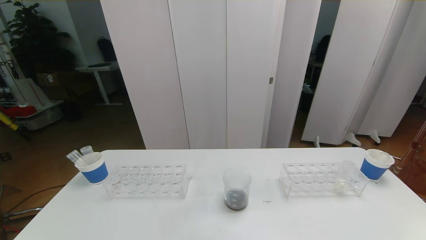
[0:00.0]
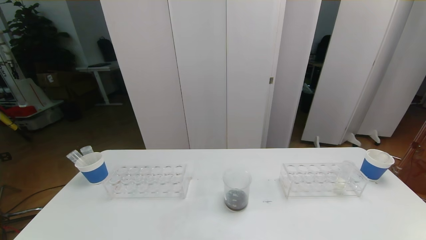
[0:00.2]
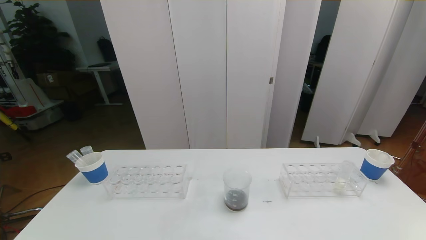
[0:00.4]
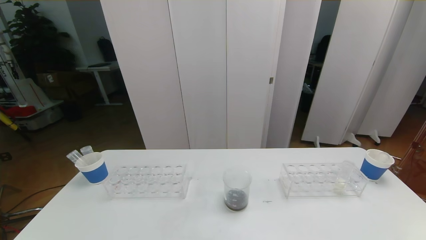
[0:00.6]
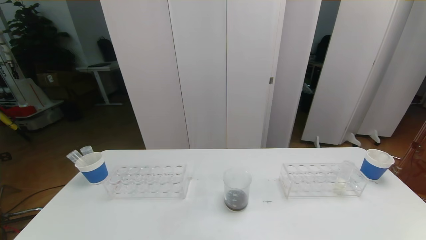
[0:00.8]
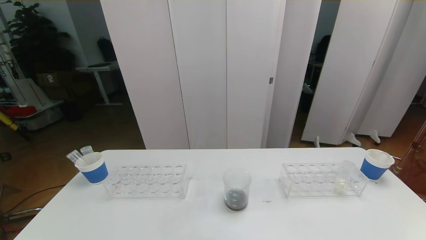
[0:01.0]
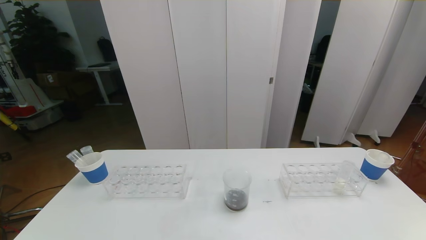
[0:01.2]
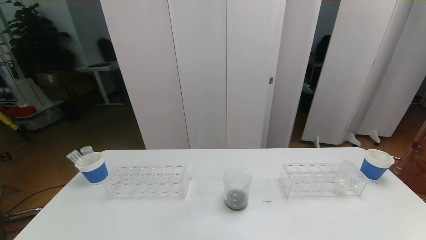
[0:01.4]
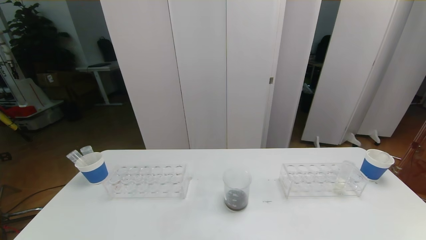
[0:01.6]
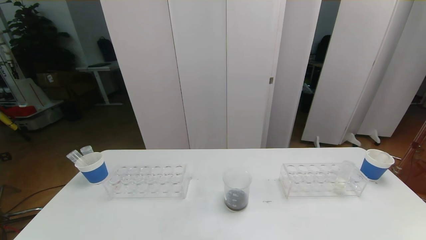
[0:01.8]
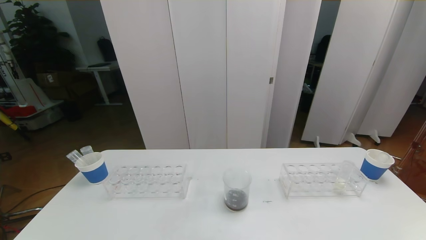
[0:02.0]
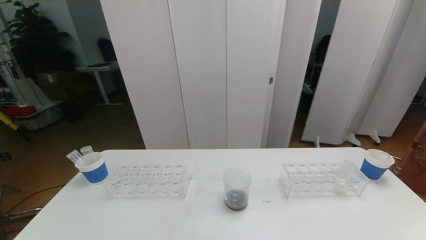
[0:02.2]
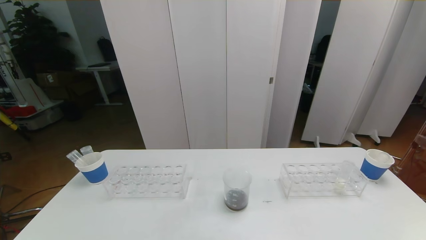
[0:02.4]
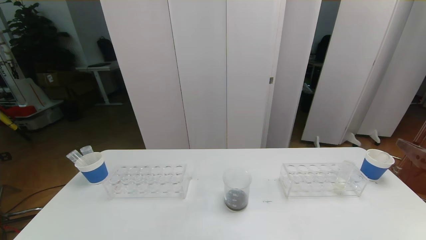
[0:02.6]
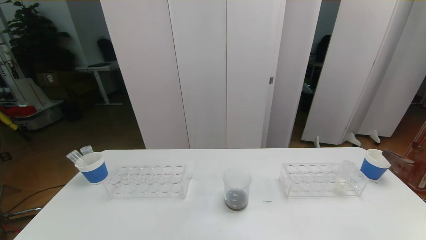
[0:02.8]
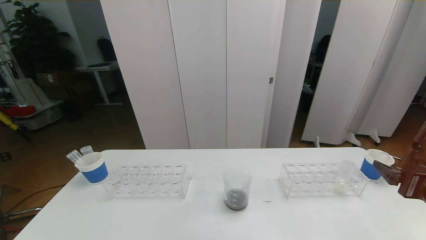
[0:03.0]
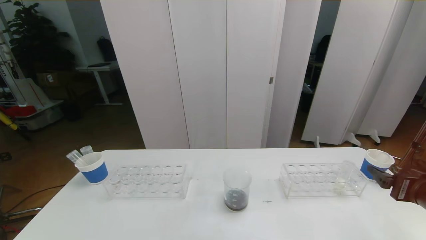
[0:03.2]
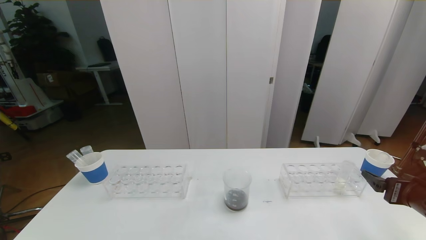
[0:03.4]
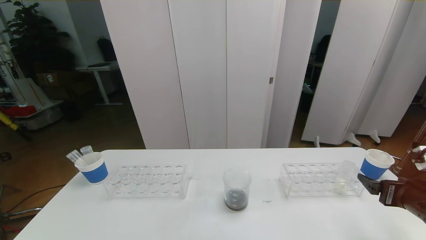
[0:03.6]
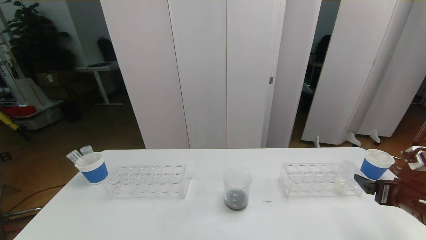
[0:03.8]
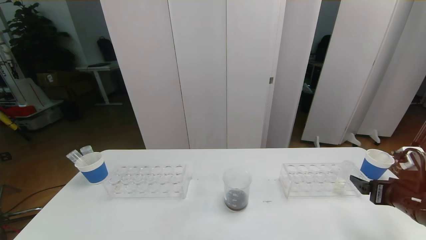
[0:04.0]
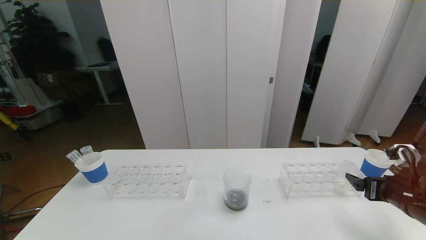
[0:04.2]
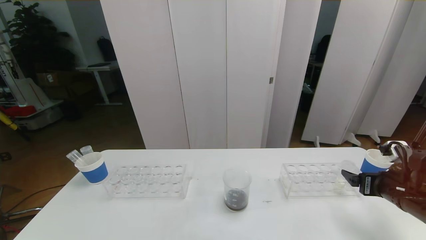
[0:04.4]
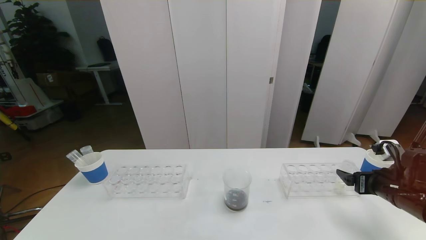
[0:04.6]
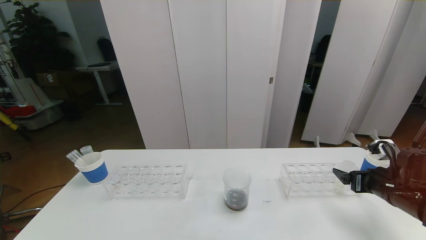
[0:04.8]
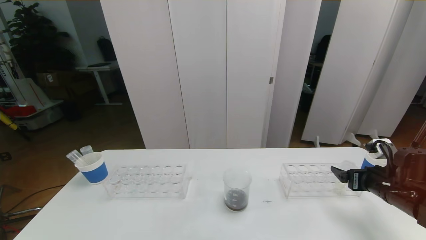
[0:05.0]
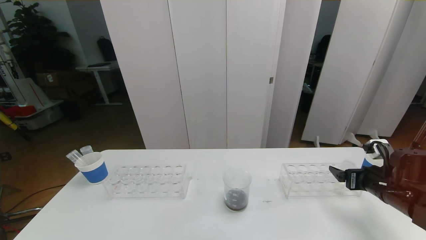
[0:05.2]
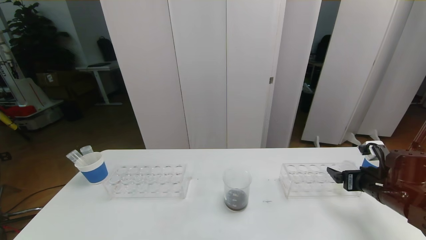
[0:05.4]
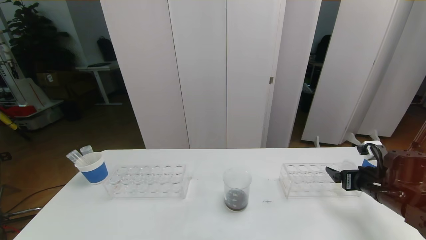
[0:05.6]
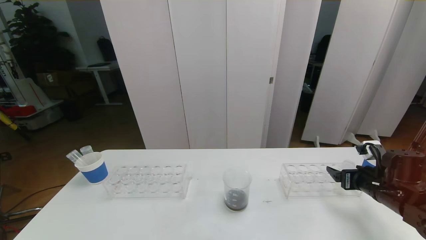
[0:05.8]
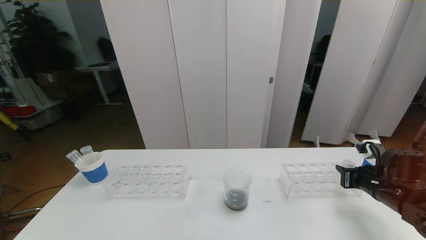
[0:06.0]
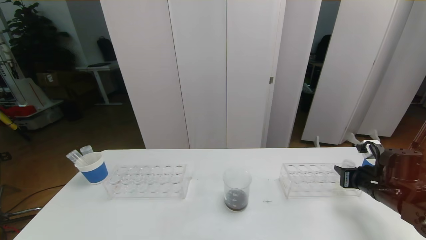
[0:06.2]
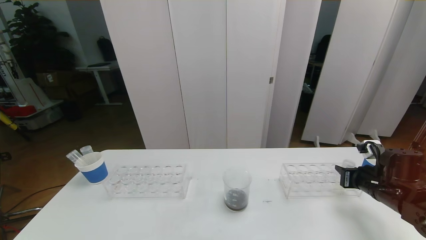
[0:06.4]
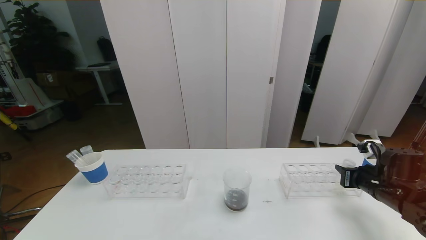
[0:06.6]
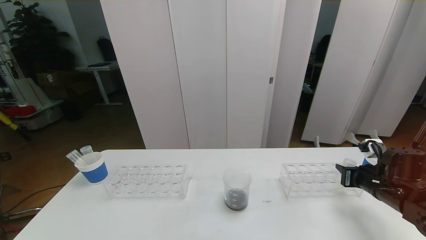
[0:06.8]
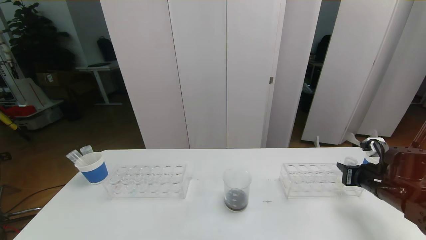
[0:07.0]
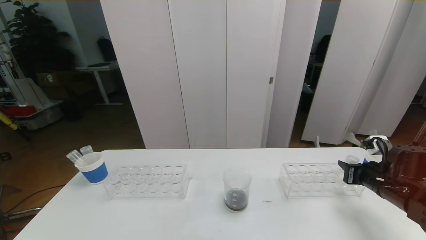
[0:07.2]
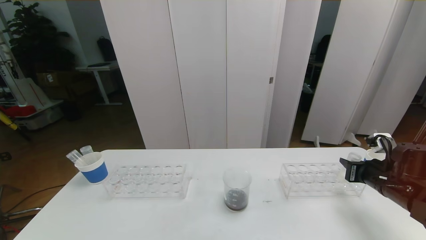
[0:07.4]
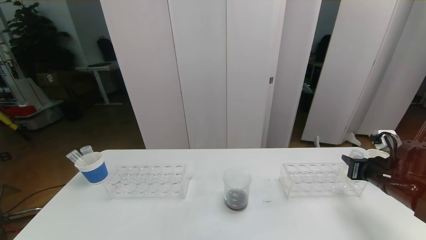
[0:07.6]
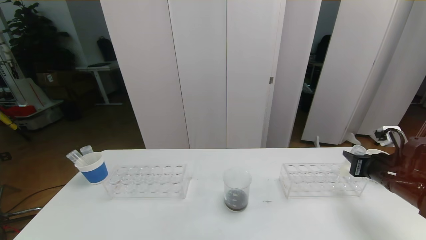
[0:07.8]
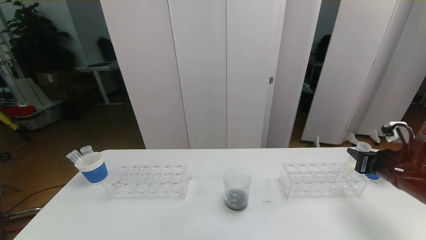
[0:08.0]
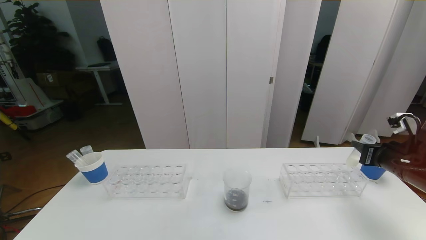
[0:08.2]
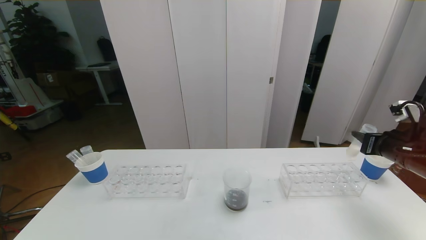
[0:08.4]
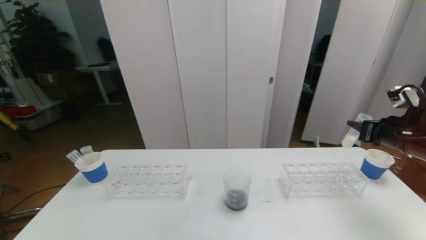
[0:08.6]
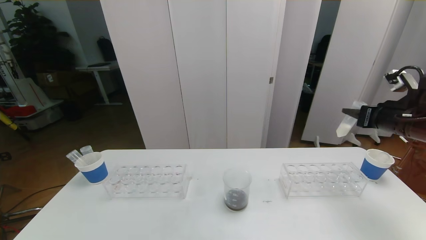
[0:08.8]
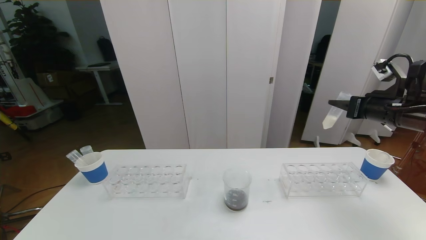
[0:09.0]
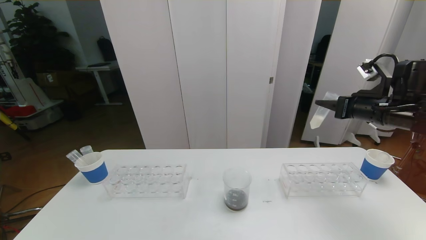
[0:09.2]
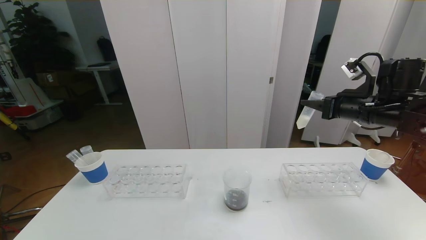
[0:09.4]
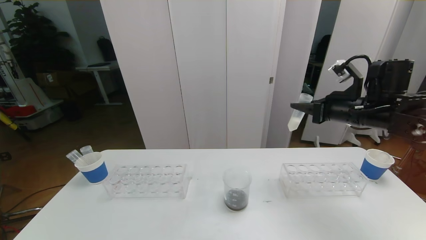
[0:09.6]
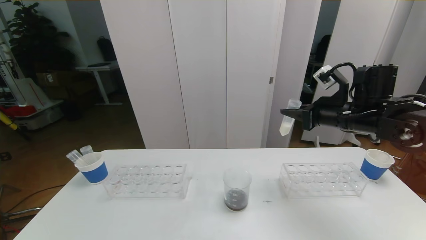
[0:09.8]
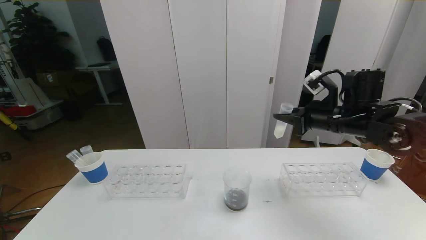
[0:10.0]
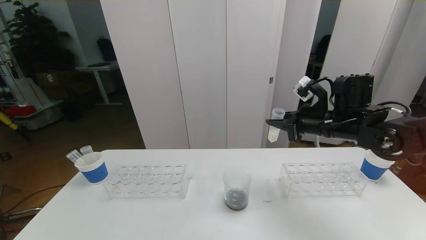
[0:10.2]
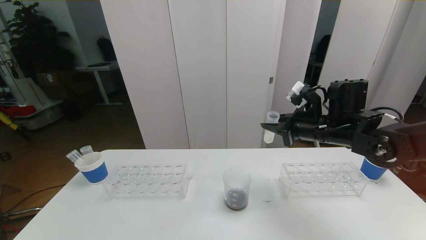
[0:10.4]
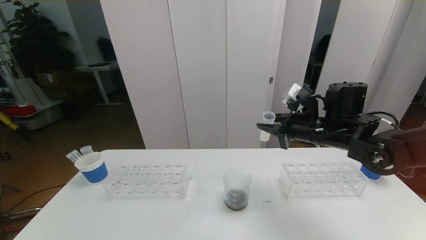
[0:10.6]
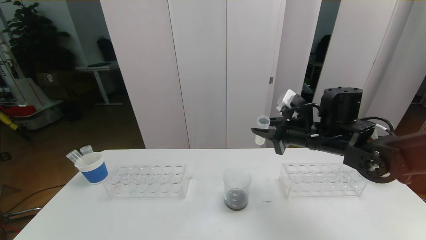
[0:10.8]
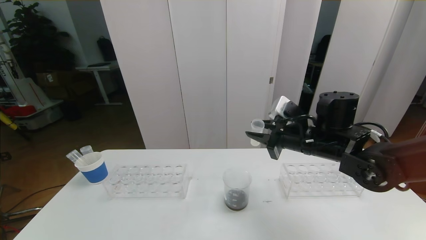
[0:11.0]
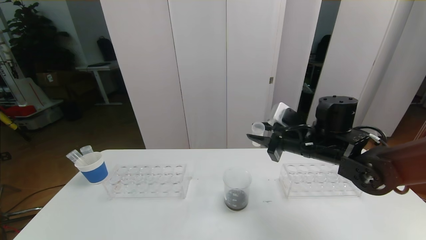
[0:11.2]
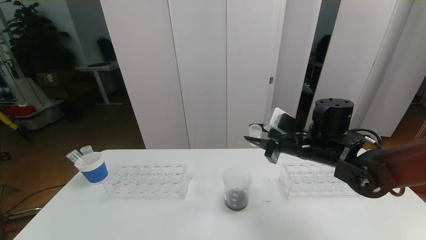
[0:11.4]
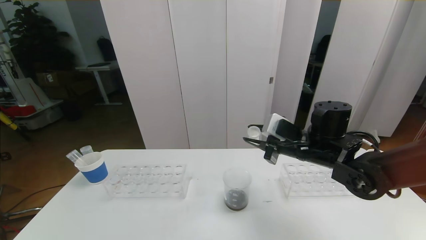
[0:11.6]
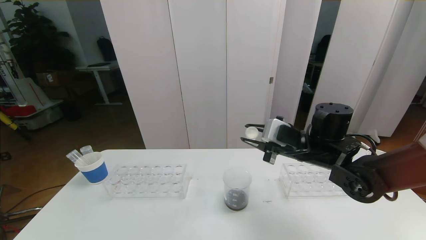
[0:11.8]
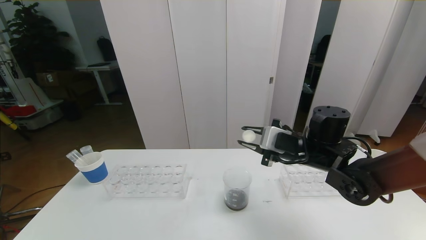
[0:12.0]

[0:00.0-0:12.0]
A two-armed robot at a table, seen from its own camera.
Task of the whole recording: pick up the test tube with red pigment the test tube with blue pigment and the test tube with white pigment by grippers and pour them into the beaker.
0:01.6 to 0:03.0: The right gripper goes approximately 20 cm forward and downward.
0:03.0 to 0:04.4: The right gripper is displaced forward and downward by about 10 cm.
0:04.4 to 0:06.0: The right gripper shifts by approximately 5 cm, and closes its fingers.
0:06.0 to 0:07.6: The grippers stay close to where they were, moving slightly.
0:07.6 to 0:09.0: The right gripper shifts approximately 15 cm upward and forward.
0:09.0 to 0:10.4: The right gripper heads to the left, covering approximately 15 cm.
0:10.4 to 0:12.0: The right gripper moves about 5 cm.

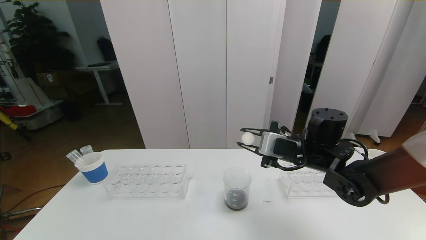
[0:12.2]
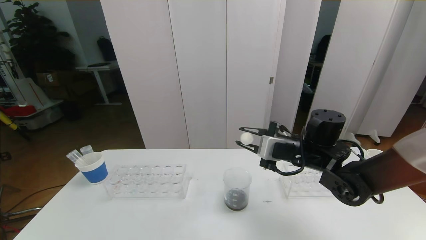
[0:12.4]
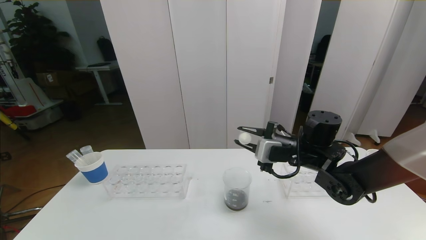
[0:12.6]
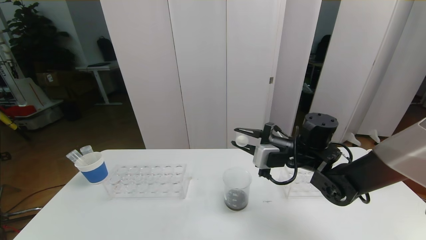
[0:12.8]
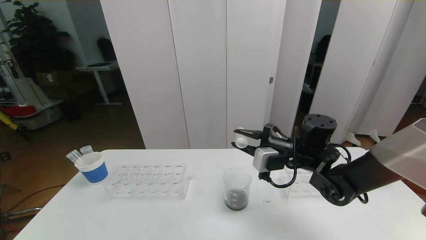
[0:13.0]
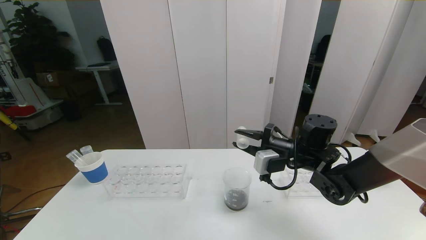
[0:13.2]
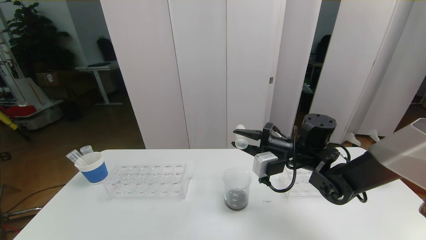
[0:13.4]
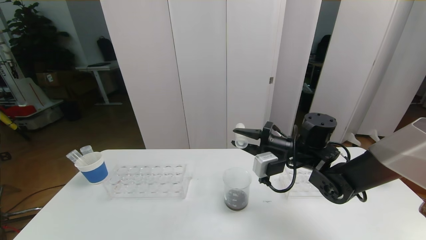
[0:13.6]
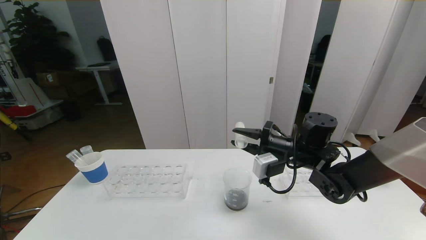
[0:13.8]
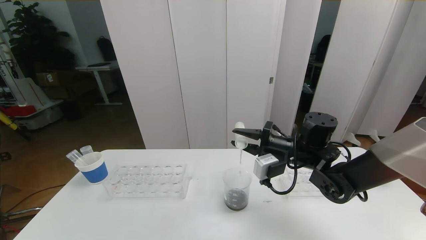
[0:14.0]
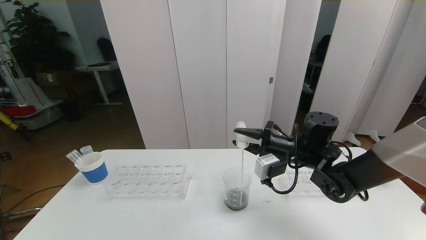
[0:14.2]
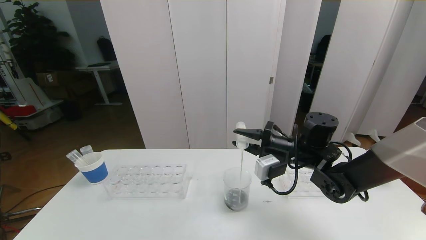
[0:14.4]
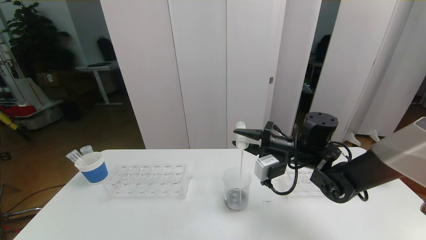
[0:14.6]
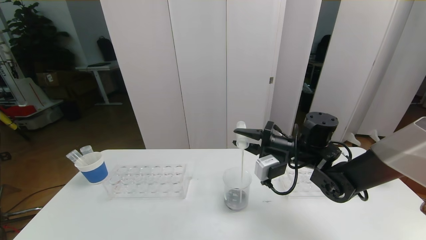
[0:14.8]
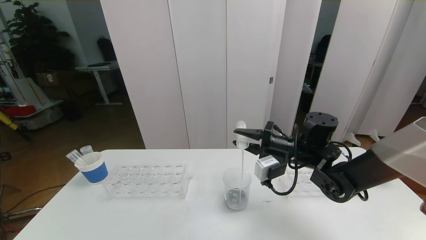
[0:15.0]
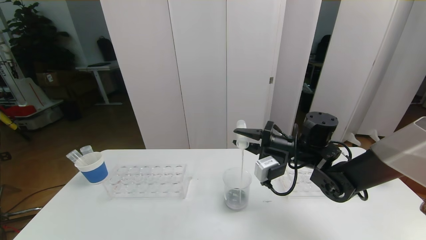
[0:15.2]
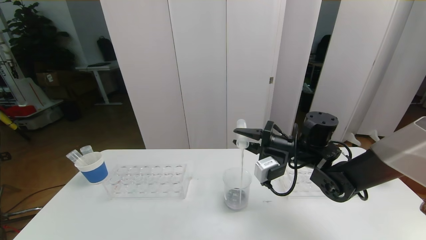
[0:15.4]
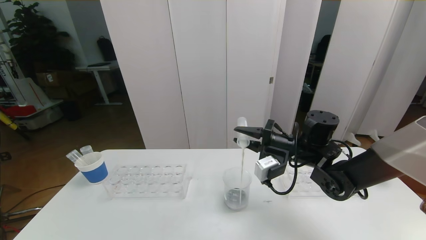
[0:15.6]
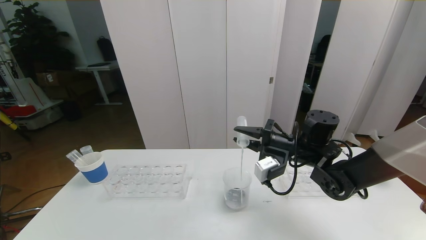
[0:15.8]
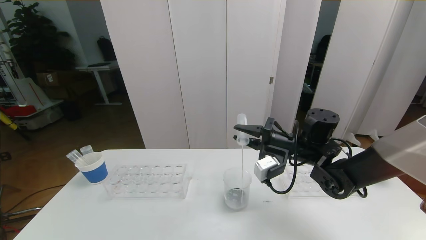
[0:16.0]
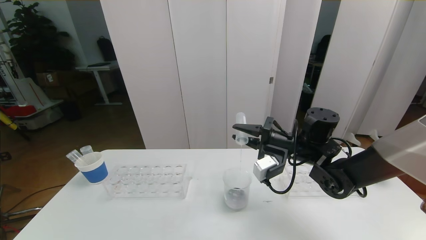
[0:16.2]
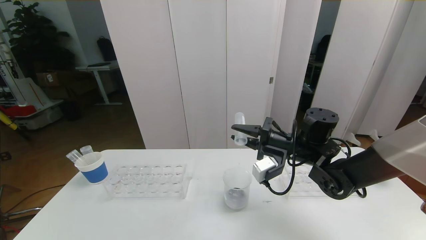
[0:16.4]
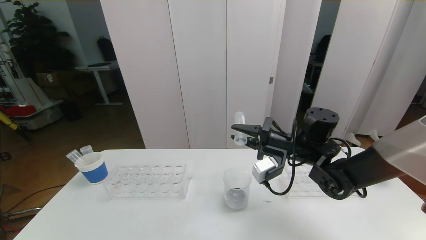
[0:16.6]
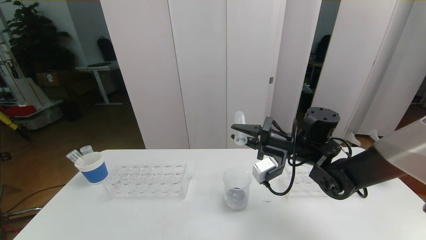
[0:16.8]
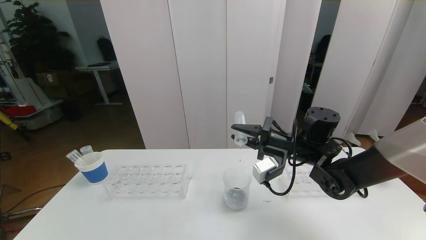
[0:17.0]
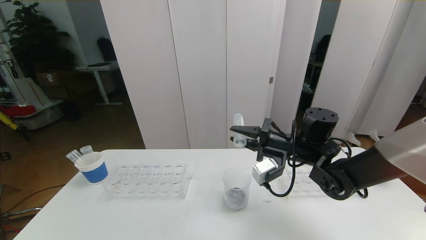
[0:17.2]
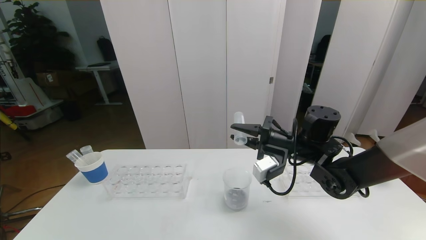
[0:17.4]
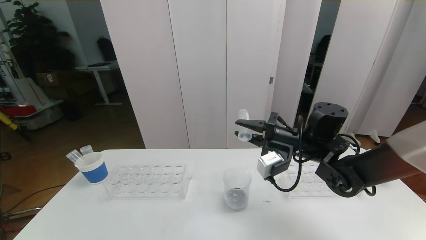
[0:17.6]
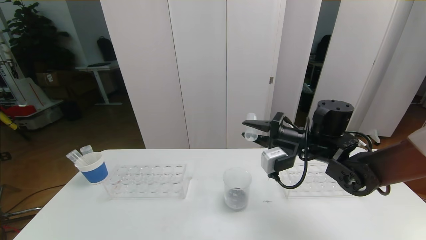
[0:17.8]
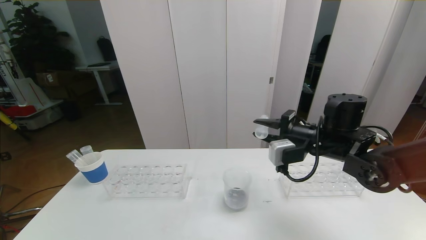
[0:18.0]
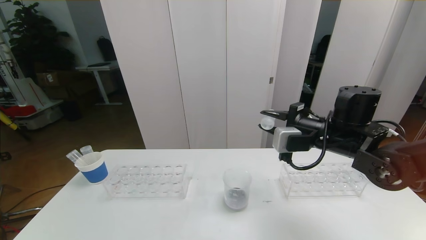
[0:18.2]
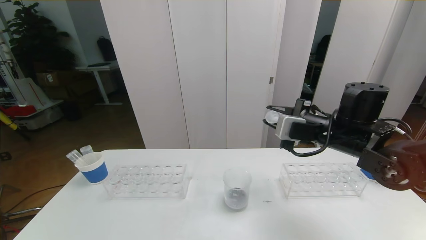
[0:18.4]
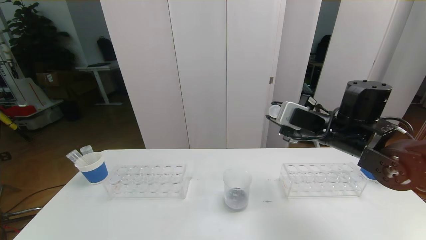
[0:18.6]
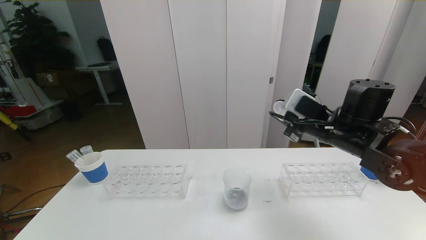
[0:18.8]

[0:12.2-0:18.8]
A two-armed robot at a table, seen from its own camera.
Task of the whole recording: pick up the test tube with red pigment the test tube with blue pigment and the test tube with white pigment by grippers and pour them into the beaker.
0:13.8 to 0:17.2: The grippers make only small movements.
0:17.2 to 0:18.8: The right gripper travels upward and to the right by about 10 cm.
